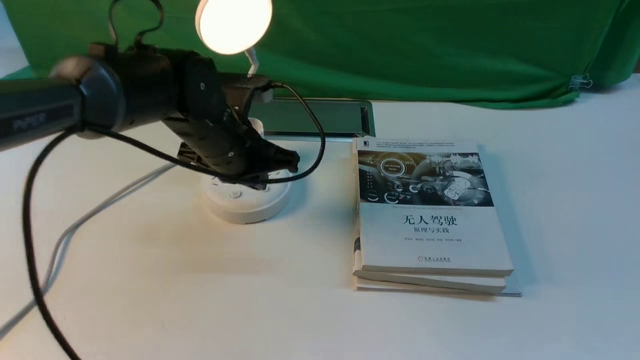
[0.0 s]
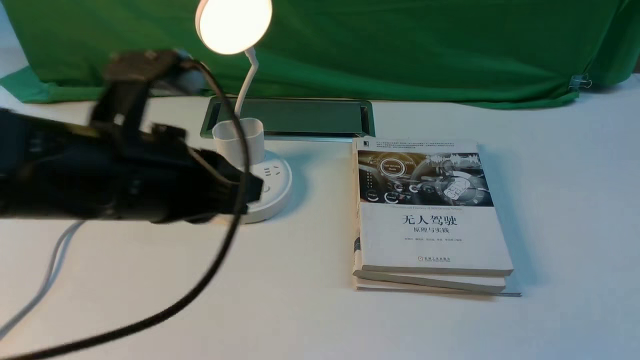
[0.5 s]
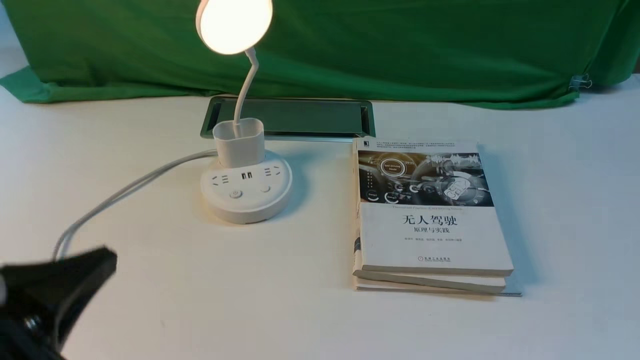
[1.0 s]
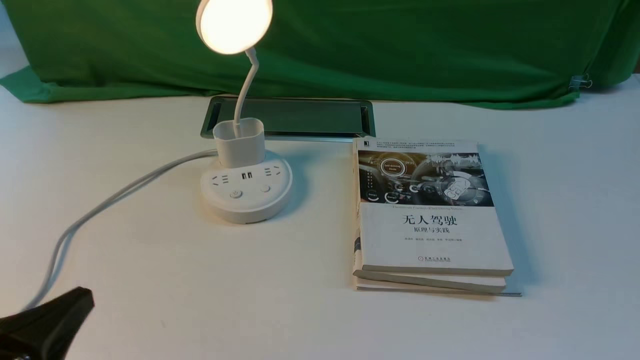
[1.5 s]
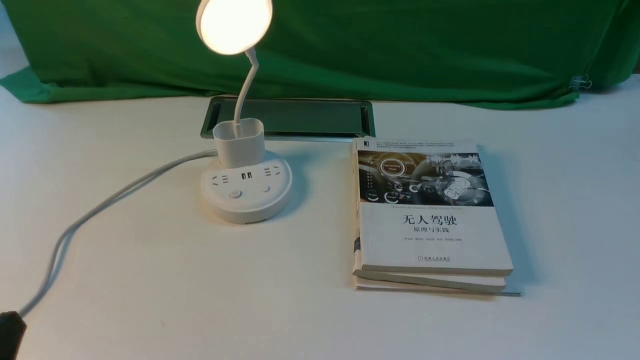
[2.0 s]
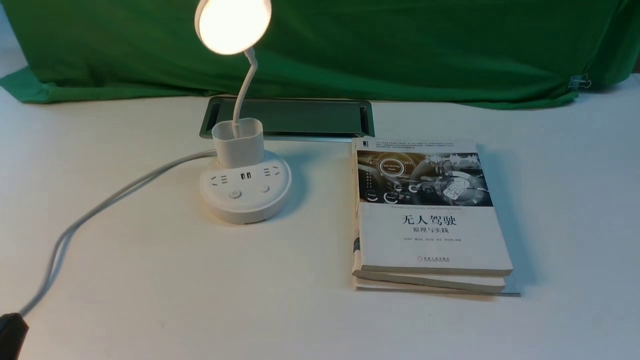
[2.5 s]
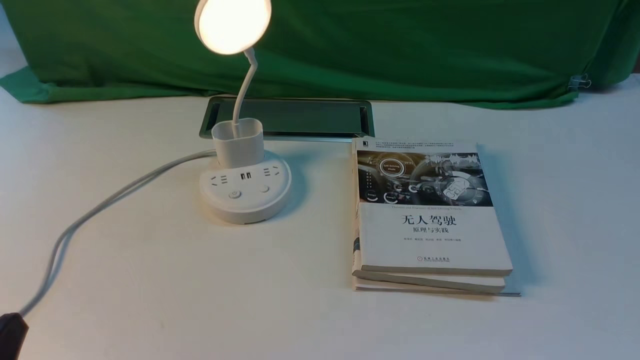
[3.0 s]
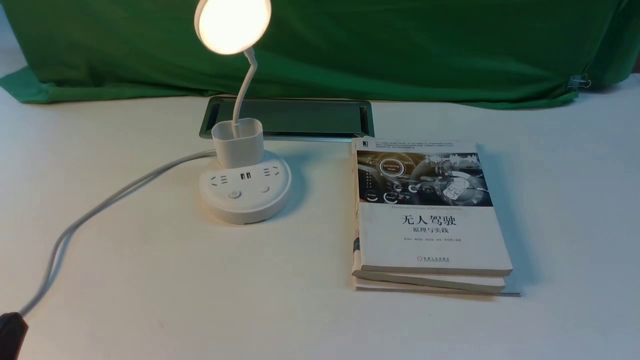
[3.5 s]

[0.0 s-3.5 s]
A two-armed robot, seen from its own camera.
0.0 to 2.0 s: The left gripper heads backward and to the left, covering about 35 cm.
